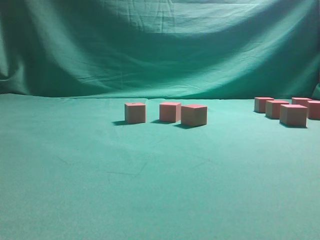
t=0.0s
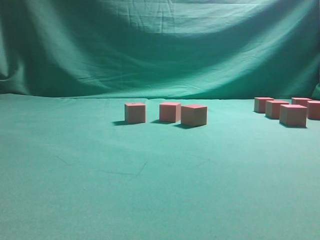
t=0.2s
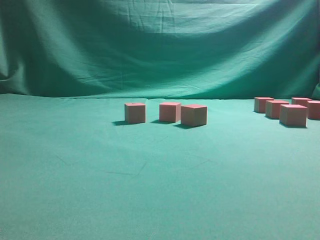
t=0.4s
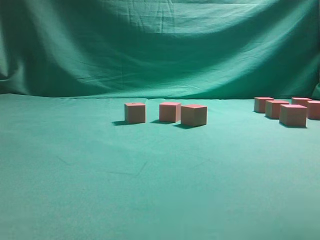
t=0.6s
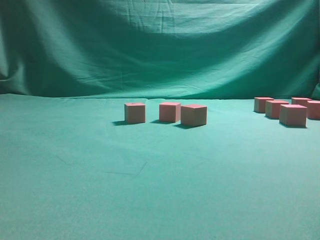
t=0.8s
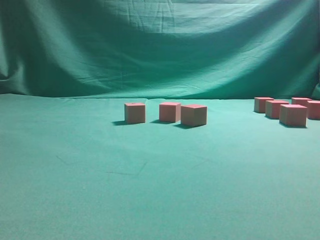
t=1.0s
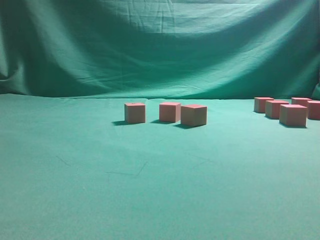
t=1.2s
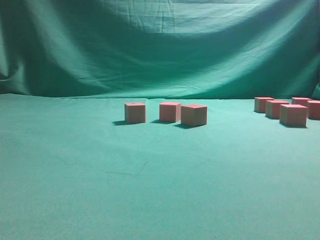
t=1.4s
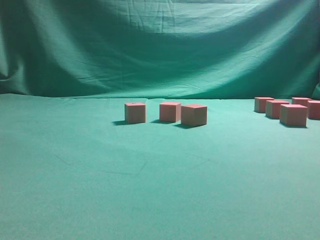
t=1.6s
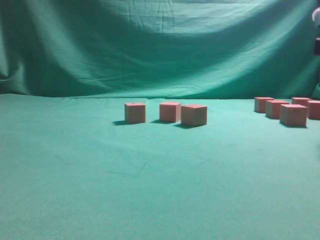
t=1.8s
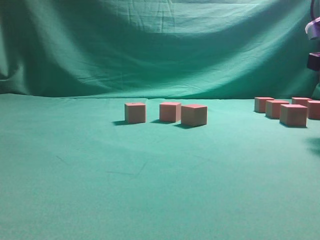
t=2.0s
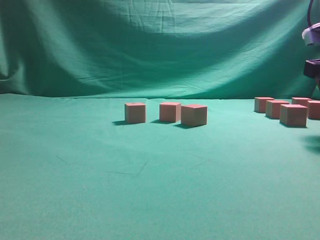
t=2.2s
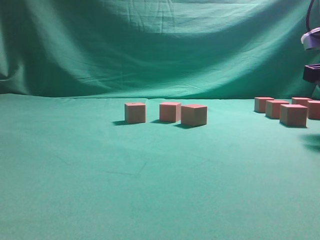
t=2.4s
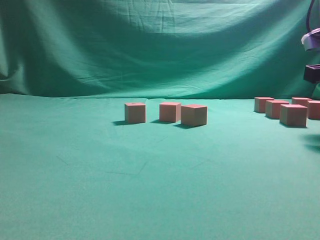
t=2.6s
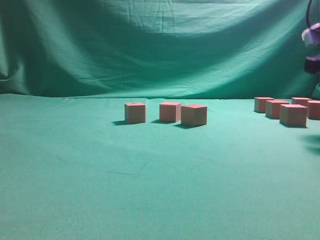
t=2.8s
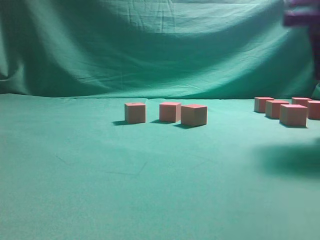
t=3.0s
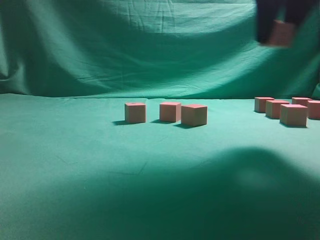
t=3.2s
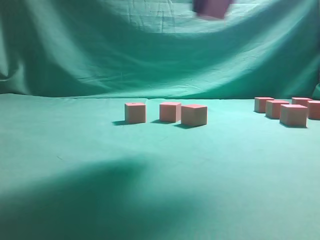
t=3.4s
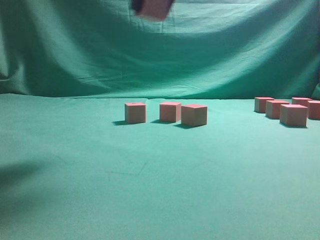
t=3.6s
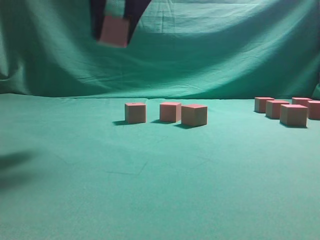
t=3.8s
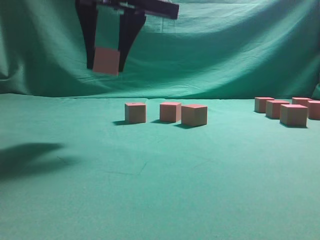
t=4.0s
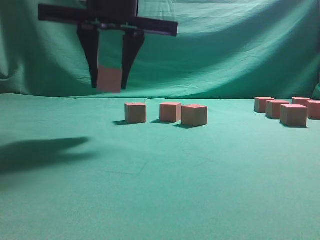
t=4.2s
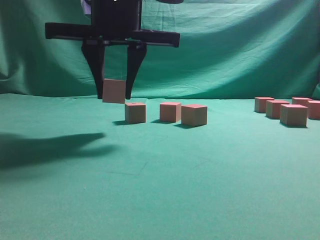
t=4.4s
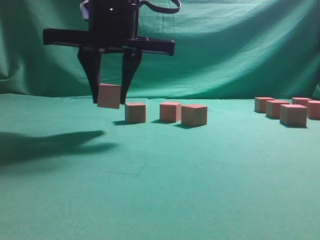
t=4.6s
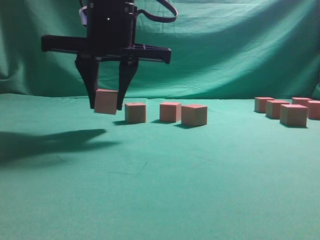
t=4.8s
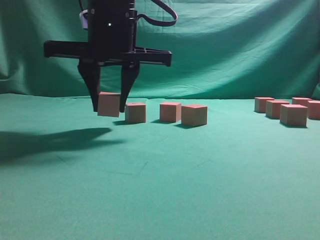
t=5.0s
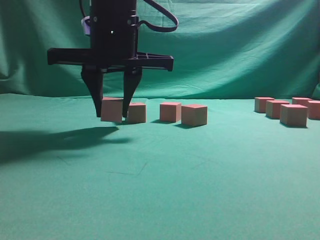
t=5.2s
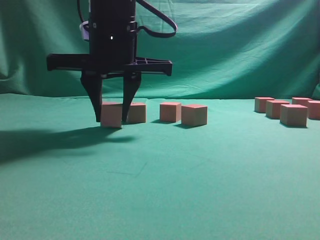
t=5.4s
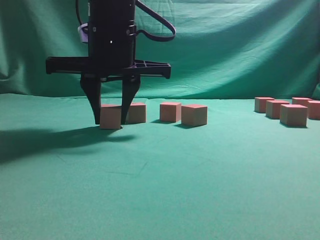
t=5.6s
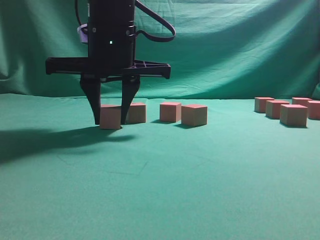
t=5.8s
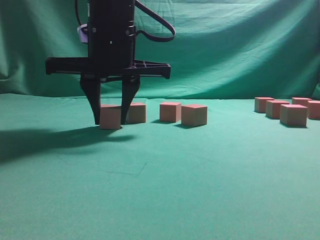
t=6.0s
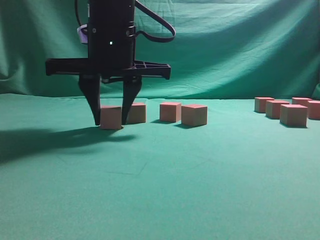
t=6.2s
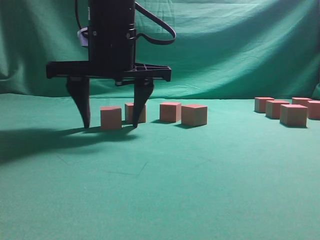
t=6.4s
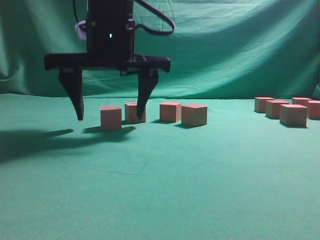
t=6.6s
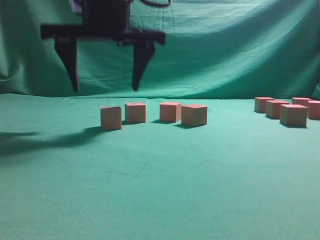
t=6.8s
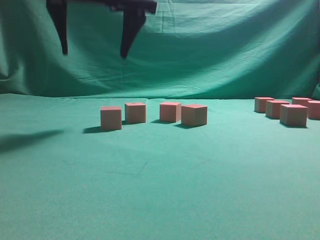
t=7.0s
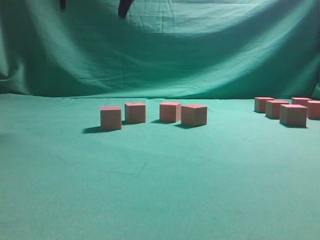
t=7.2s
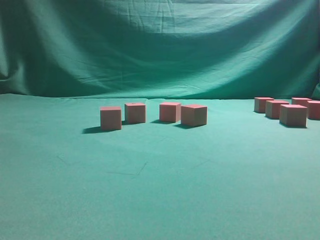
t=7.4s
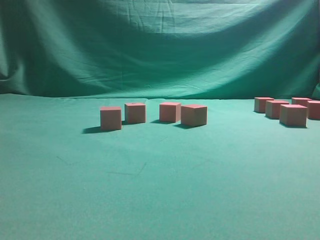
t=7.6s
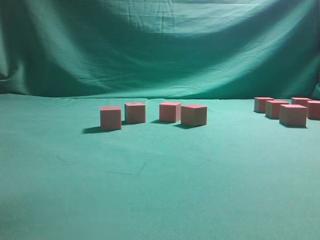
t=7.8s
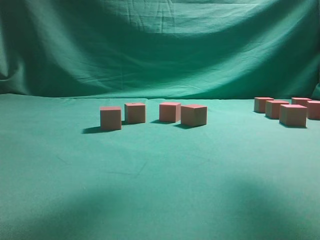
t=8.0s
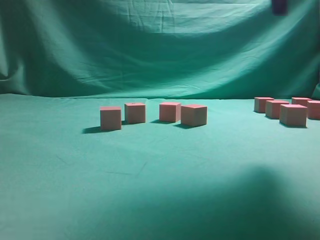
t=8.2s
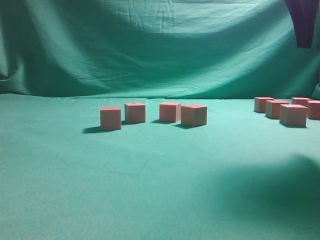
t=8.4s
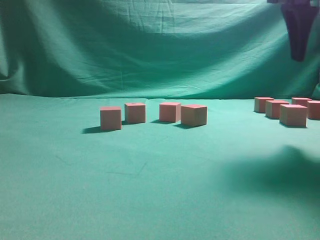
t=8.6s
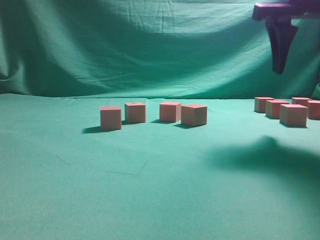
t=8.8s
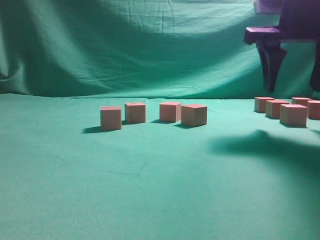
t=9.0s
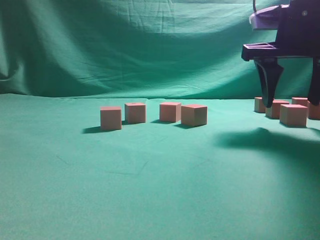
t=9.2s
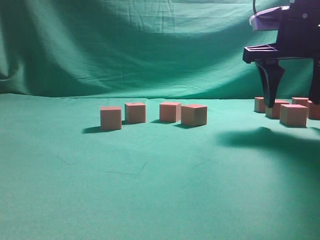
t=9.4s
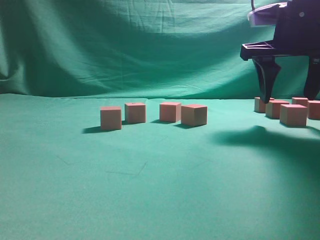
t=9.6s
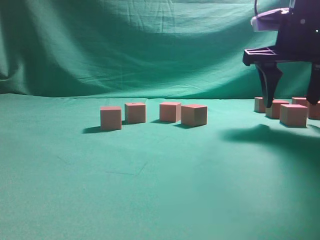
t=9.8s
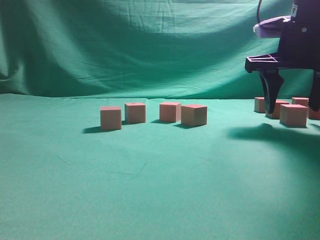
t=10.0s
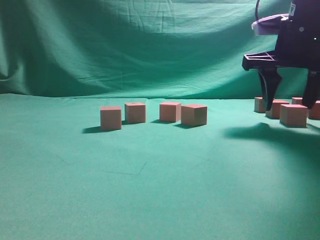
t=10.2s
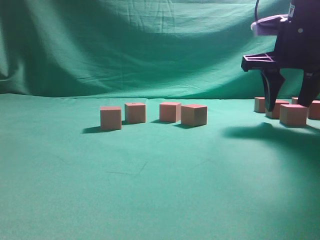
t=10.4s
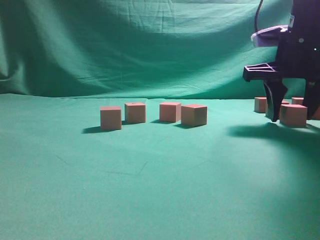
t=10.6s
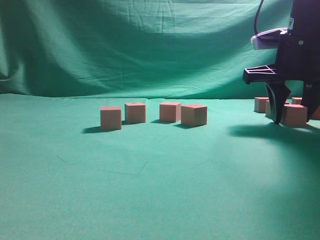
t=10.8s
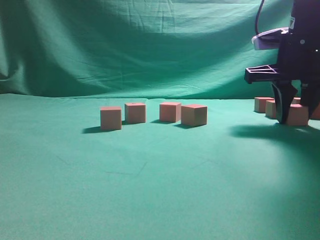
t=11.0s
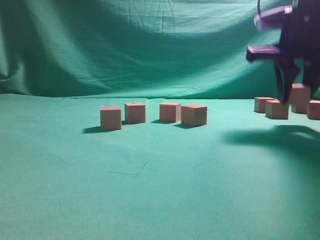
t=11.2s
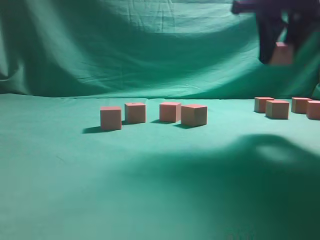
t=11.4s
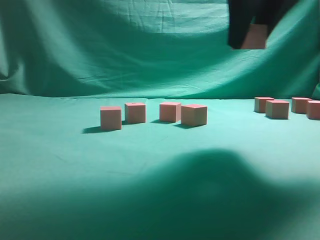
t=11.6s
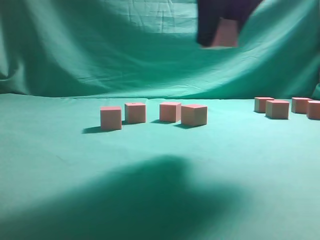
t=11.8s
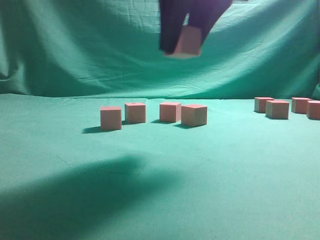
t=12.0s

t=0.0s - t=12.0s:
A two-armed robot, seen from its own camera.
Task of the whole recording: pick up the multiple cubes in two columns one by one and place them in another position on the table.
Step, t=3.0s - t=7.0s: Place the block at the correct position to assemble the letter S.
Step, t=7.2s - t=11.4s: Pick up the block on the table.
t=1.6s - t=3.0s: The right gripper travels downward and back again, some 5 cm each way, and closes.
t=3.0s - t=4.4s: The right gripper is displaced to the left by about 30 cm.
t=4.4s - t=6.0s: The grippers make only small movements.
t=6.0s - t=7.6s: The right gripper shifts some 25 cm upward, and opens its fingers.
t=7.6s - t=9.0s: The right gripper travels downward and to the right by about 25 cm.
t=9.0s - t=10.4s: The grippers make only small movements.
t=10.4s - t=12.0s: The right gripper is displaced to the left, backward and upward by approximately 20 cm.

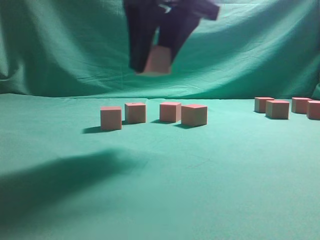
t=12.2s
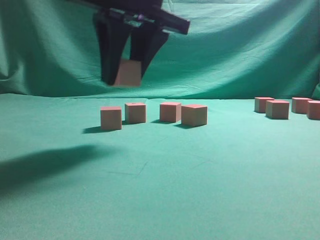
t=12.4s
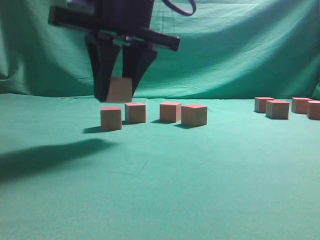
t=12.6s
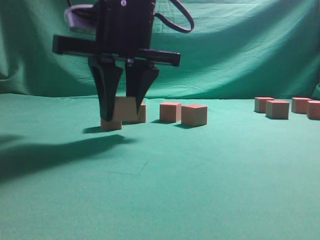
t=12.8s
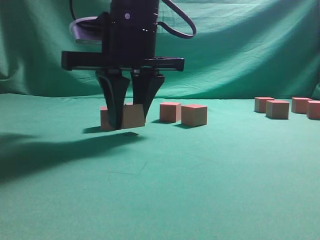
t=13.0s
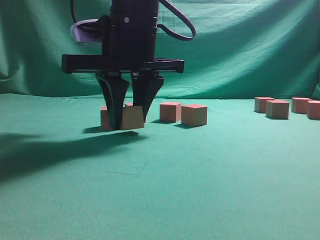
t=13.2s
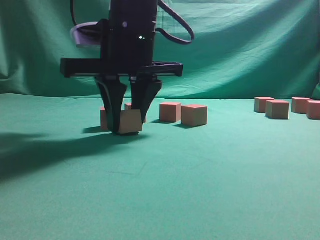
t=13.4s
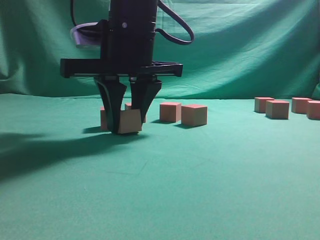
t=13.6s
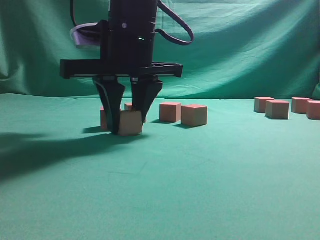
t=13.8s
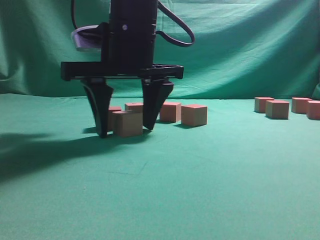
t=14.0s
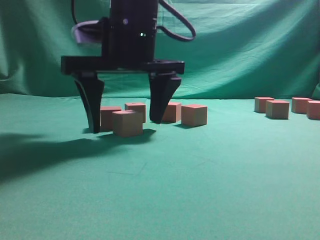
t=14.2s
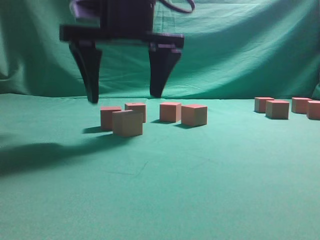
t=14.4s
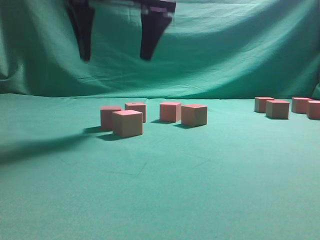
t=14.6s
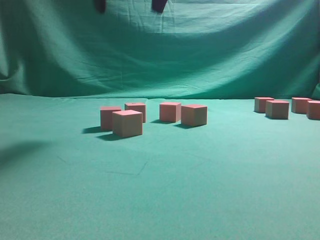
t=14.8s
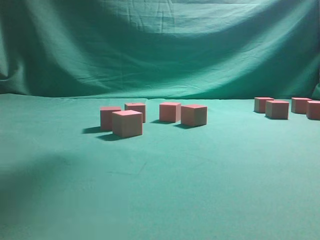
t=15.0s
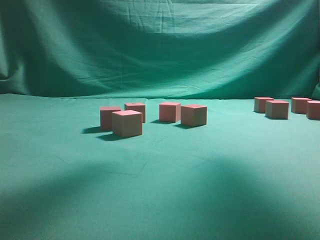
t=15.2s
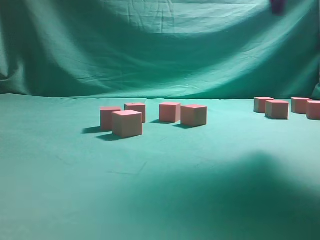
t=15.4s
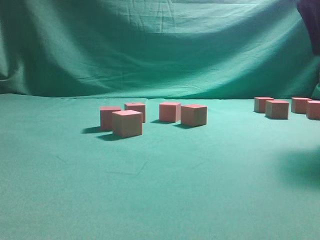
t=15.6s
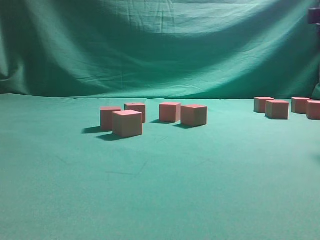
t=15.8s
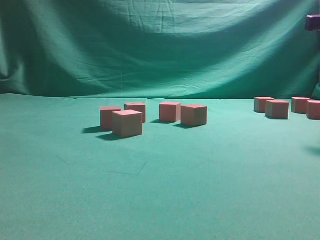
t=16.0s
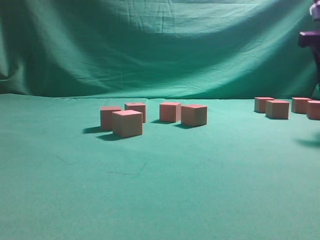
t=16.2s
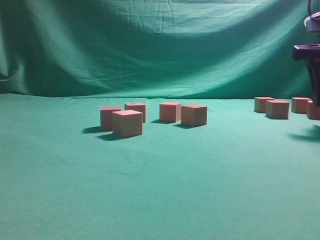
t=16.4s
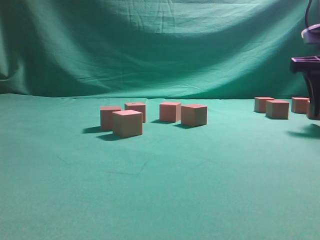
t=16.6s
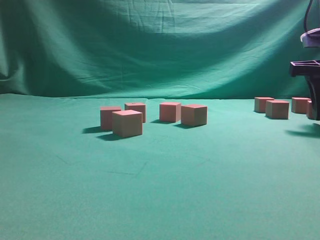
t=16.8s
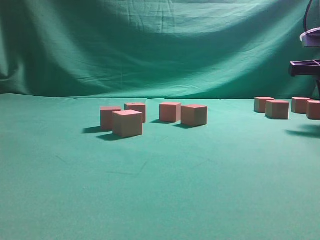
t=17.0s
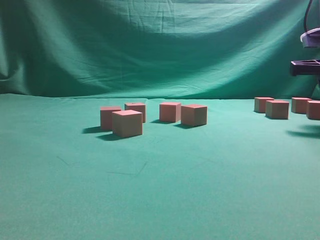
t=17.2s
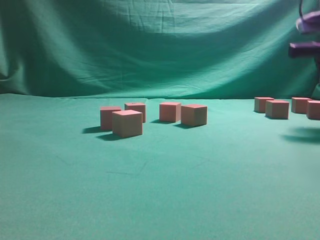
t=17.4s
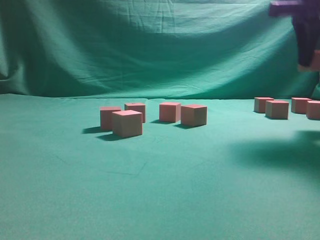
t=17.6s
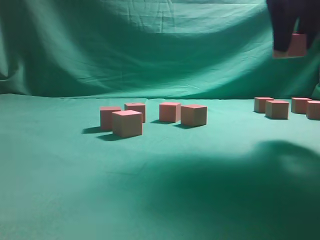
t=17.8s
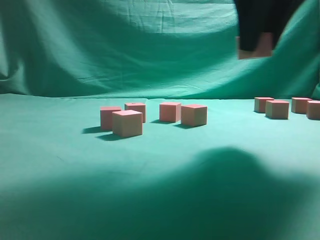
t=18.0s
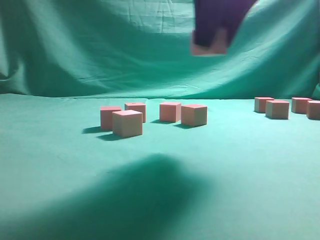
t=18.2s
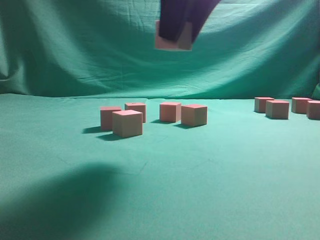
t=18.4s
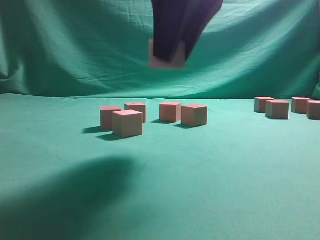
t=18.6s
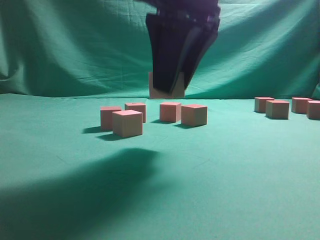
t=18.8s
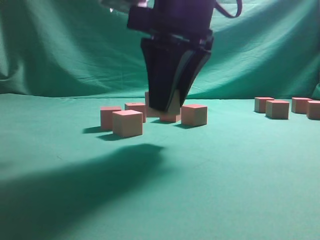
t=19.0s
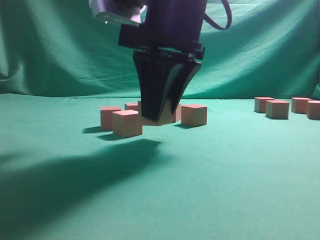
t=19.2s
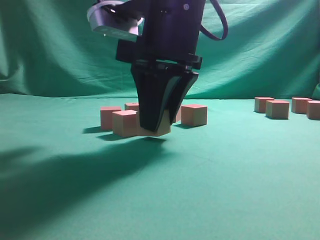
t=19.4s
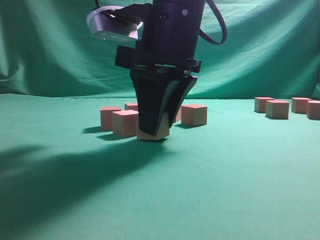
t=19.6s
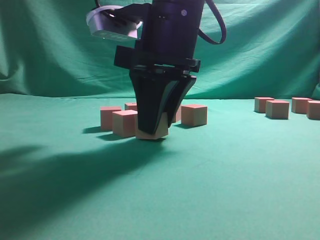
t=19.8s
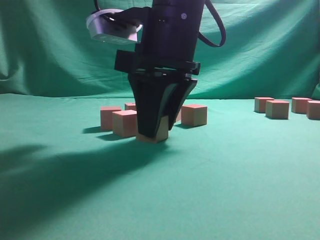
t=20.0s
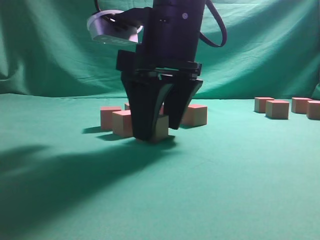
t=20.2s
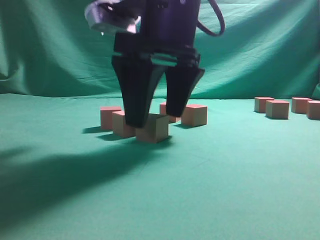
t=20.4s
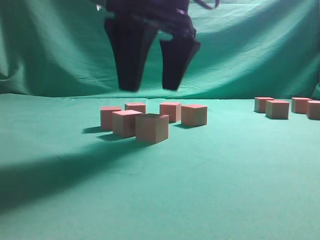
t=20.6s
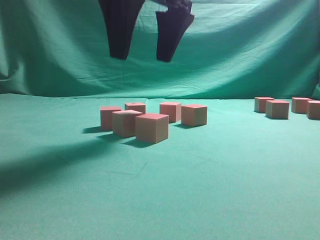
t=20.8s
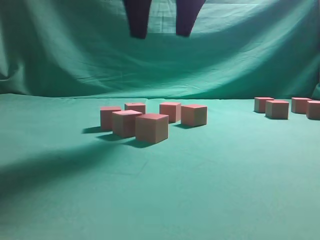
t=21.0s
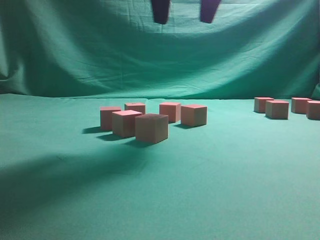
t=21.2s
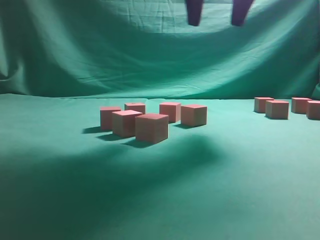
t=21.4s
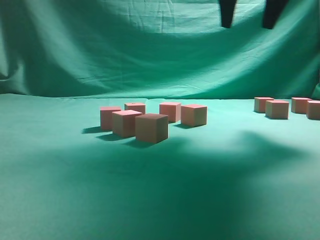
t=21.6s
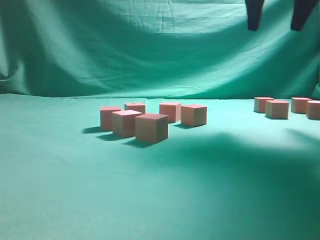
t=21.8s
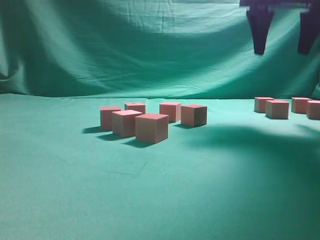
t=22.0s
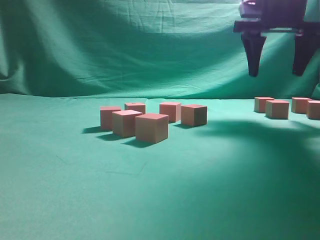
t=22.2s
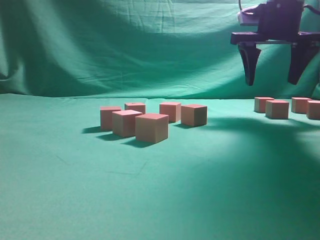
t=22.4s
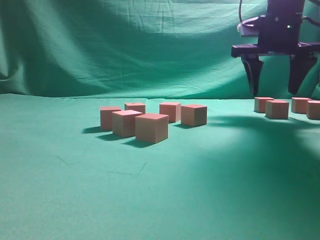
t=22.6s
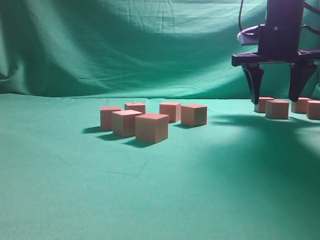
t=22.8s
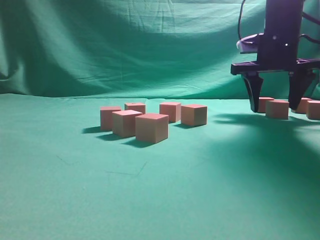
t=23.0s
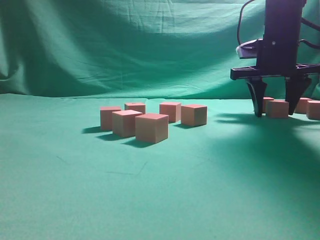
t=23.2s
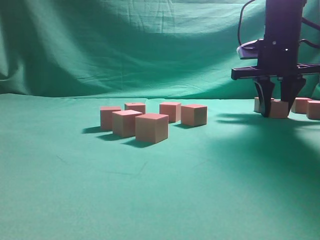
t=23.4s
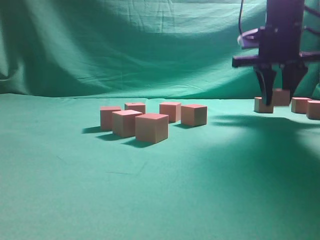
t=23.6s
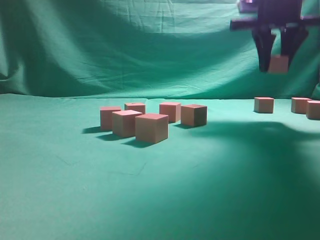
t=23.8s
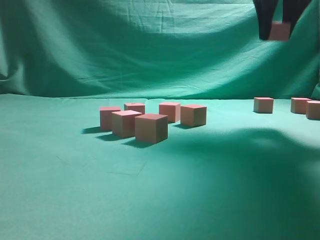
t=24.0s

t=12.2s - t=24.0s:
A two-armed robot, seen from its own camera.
Task of the whole recording: pick up the multiple cubes in two columns one by one and place them in another position on the table.
Step, t=12.2s - t=14.6s: Place the block at the correct position to assemble the letter S.
Step, t=14.8s - t=17.6s: Pick up the block on the table.
Step, t=17.8s - t=21.2s: Place the block at the correct position to assemble the letter S.
Step, t=21.4s - t=23.6s: Pick up the block on the table.
t=12.2s - t=13.6s: The right gripper goes about 5 cm downward.
t=13.6s - t=15.2s: The right gripper heads upward and to the right, covering roughly 25 cm, and opens up.
t=15.2s - t=16.6s: The right gripper heads downward and to the right, covering approximately 25 cm.
t=16.6s - t=18.2s: The right gripper shifts some 25 cm to the left, upward and backward, and closes up.
t=18.2s - t=19.6s: The right gripper travels downward and to the left by some 10 cm.
t=19.6s - t=21.0s: The right gripper goes roughly 10 cm upward, and opens.
t=21.0s - t=22.6s: The right gripper moves to the right, forward and downward, about 25 cm.
t=22.6s - t=24.0s: The right gripper shifts some 10 cm upward and backward, and closes.
